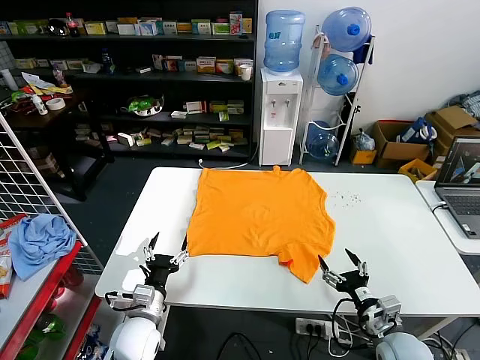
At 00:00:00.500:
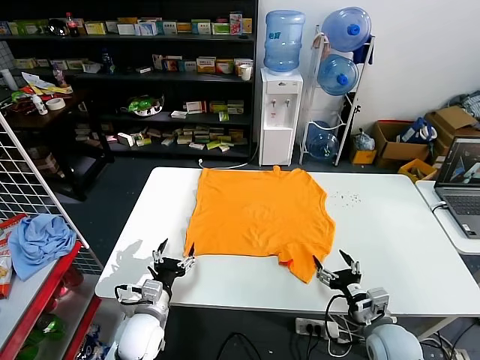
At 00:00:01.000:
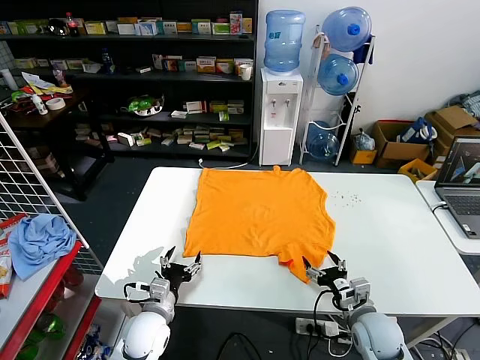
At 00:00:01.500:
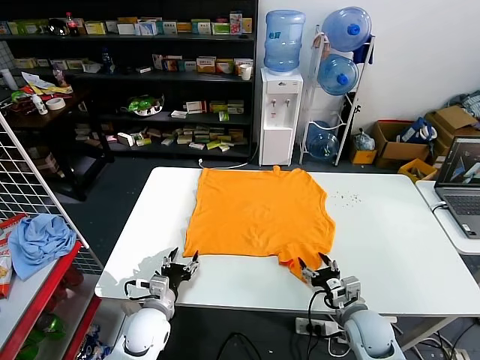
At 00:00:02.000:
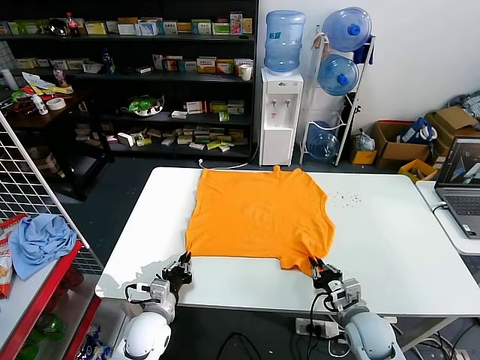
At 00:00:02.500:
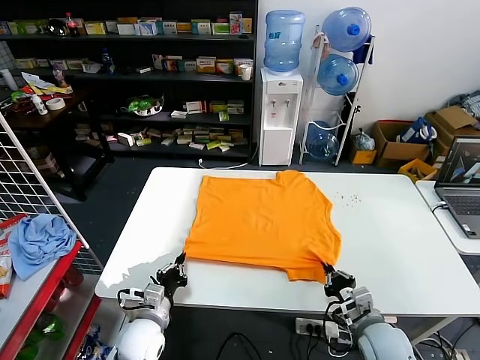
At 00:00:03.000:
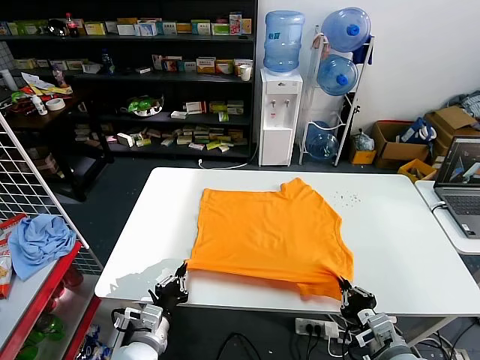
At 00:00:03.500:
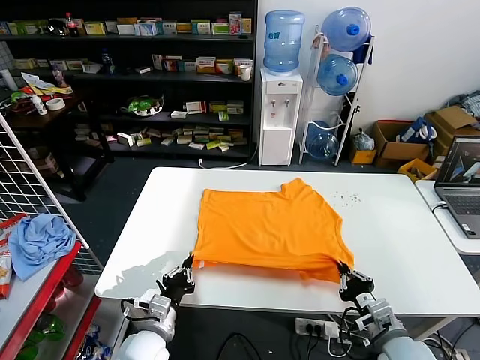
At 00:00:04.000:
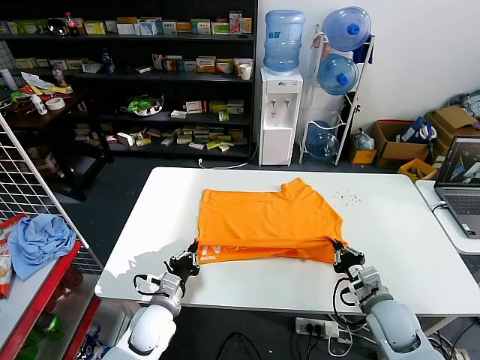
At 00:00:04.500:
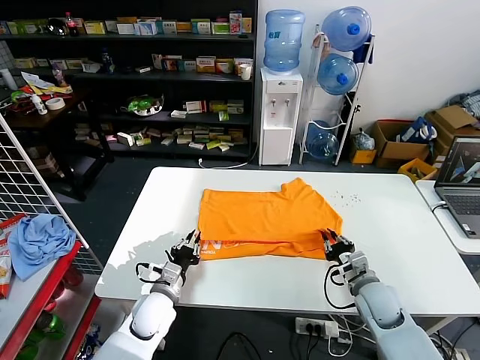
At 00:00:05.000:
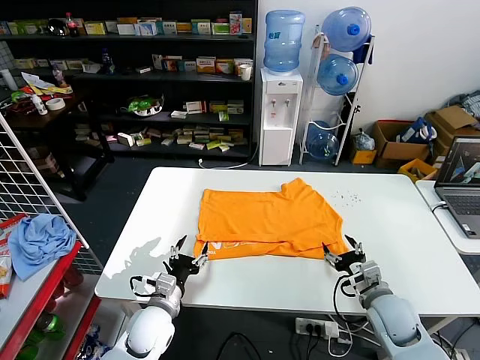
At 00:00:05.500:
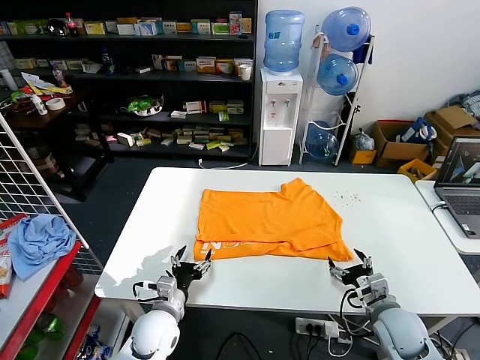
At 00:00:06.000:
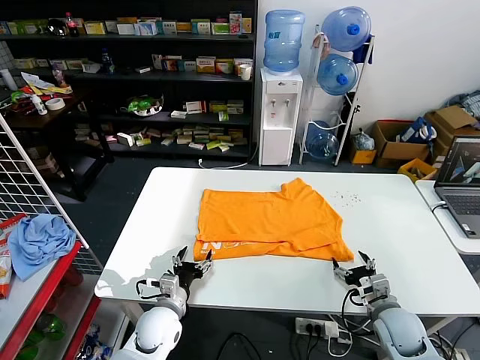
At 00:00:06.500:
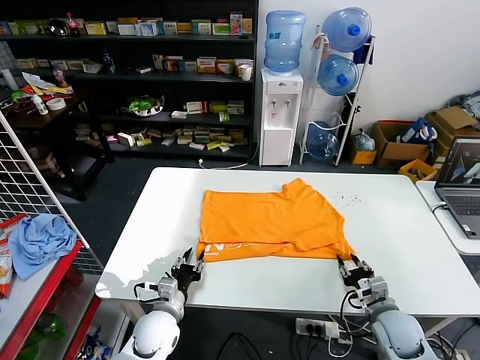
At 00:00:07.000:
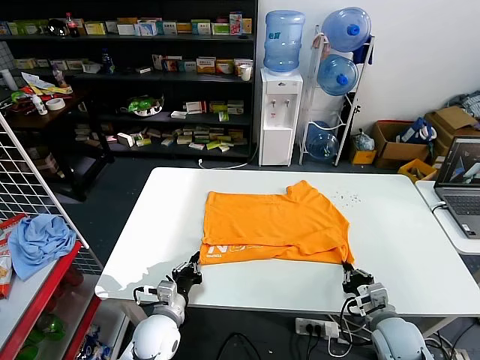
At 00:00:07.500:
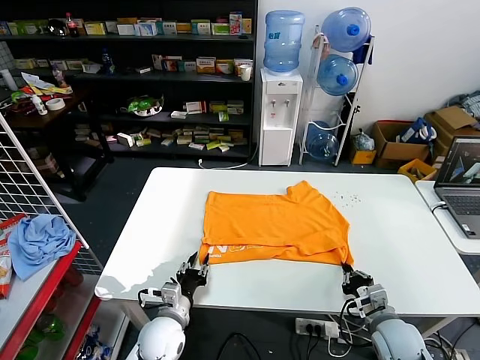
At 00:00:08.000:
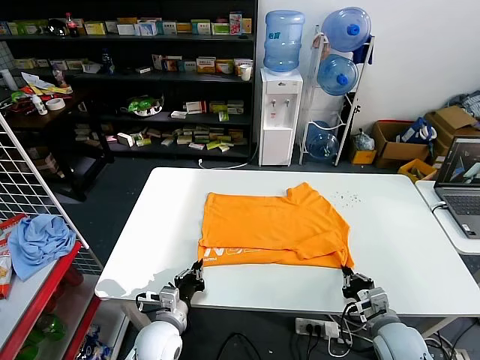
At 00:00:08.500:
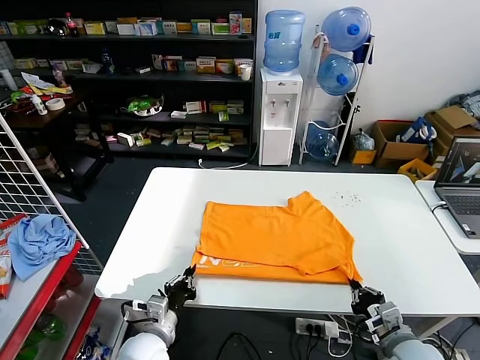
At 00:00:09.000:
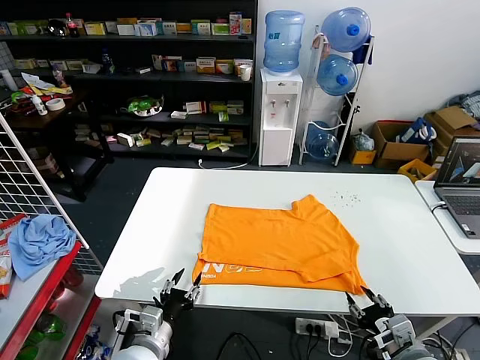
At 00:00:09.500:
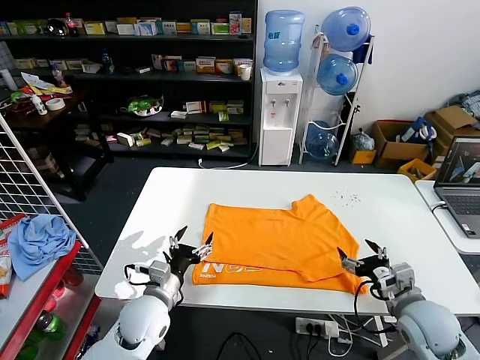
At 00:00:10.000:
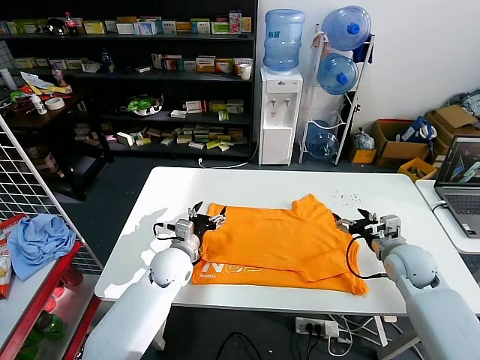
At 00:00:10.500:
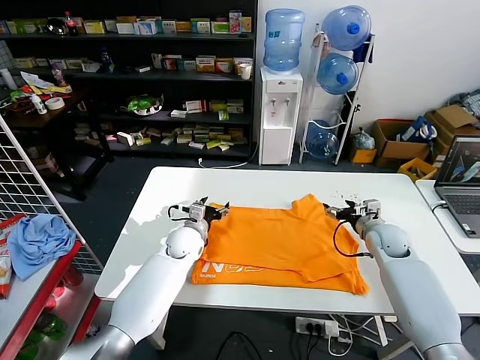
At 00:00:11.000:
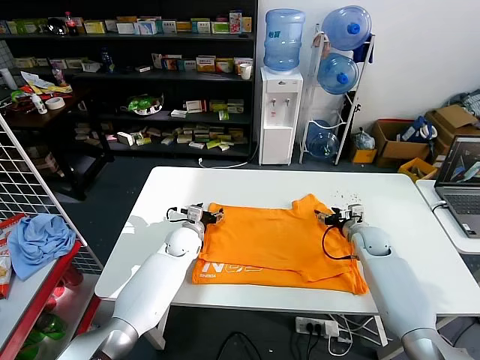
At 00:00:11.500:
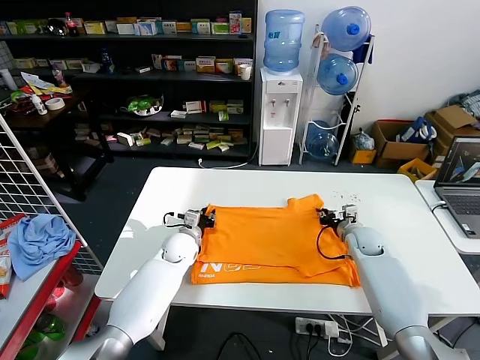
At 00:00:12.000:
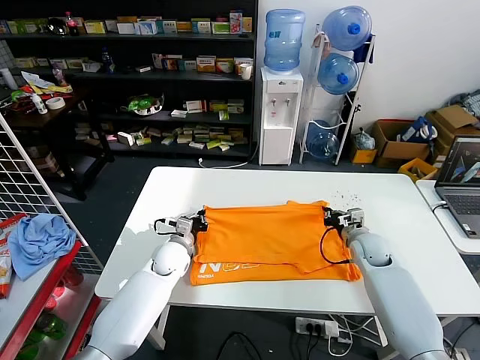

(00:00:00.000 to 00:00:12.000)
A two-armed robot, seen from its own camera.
Task of the whole recording: fold and organize the clothes.
Step, 00:00:00.000 - 00:00:02.000: use both grippers simultaneously to clamp the lower edge of the clothing fabric.
Step, 00:00:02.500 - 00:00:04.500: use both grippers to drag the lower edge of the fabric forward and fold it over the upper edge.
Step, 00:00:05.000 - 00:00:09.000: Drag the clothes downward with both gripper.
Step, 00:00:09.500 - 00:00:11.500: use both grippers simultaneously to clamp the upper edge of the clothing fabric.
00:00:02.000 - 00:00:04.000: The right gripper goes backward and returns, approximately 10 cm each way.
00:00:04.000 - 00:00:06.000: The right gripper opens its fingers. The left gripper opens its fingers.
00:00:06.000 - 00:00:08.000: The right gripper closes its fingers. Meanwhile the left gripper closes.
00:00:08.000 - 00:00:10.000: Both grippers move forward and upward, roughly 15 cm. The right gripper opens; the left gripper opens.
00:00:10.000 - 00:00:12.000: The right gripper heads forward and downward, covering approximately 10 cm, and closes; the left gripper moves forward, about 5 cm, and closes up.

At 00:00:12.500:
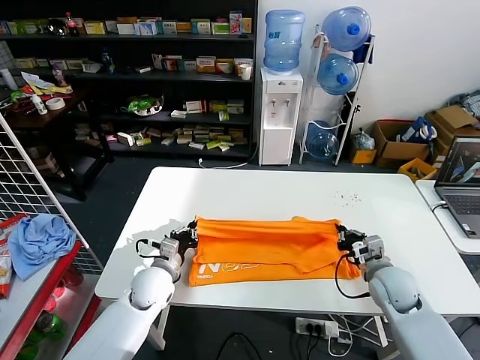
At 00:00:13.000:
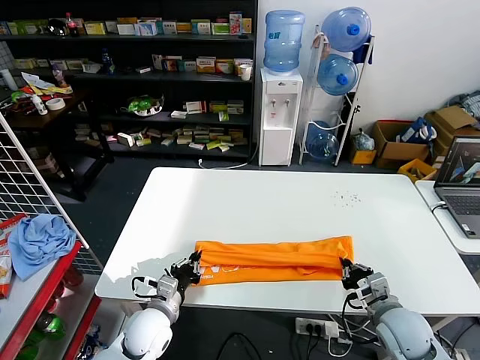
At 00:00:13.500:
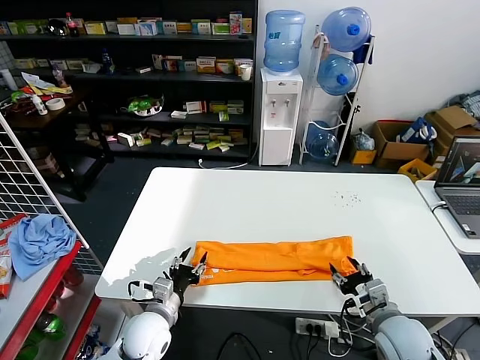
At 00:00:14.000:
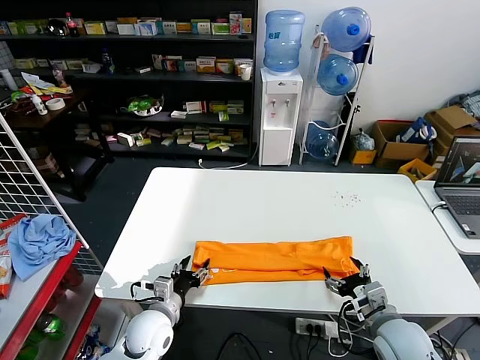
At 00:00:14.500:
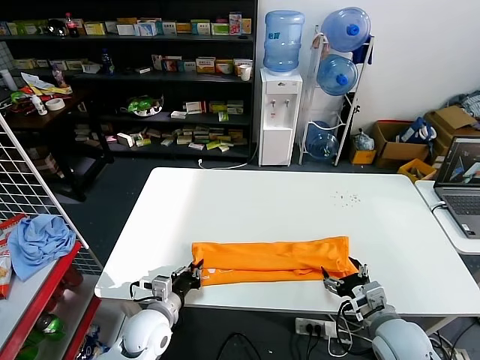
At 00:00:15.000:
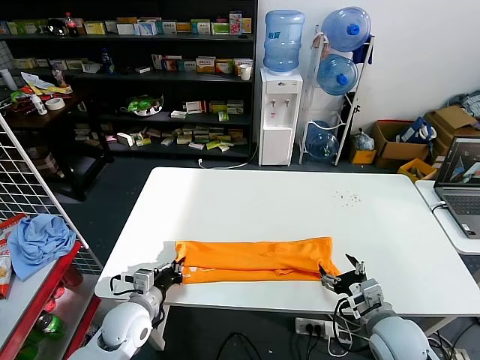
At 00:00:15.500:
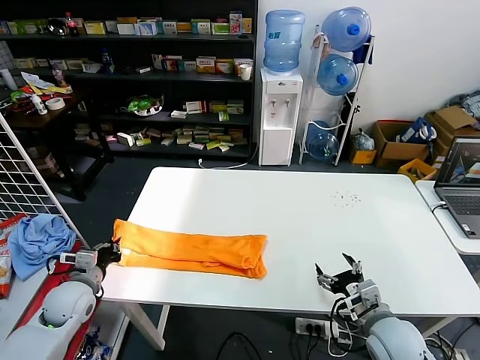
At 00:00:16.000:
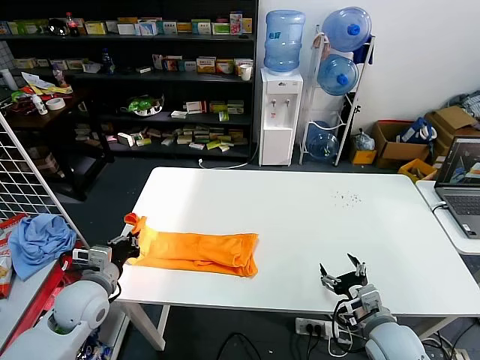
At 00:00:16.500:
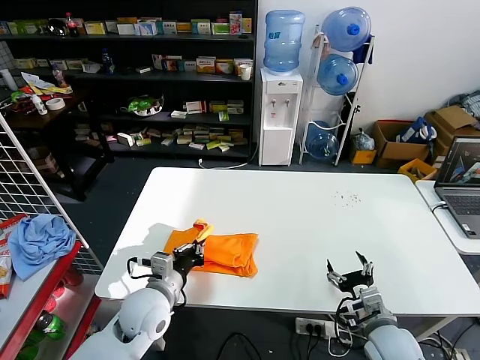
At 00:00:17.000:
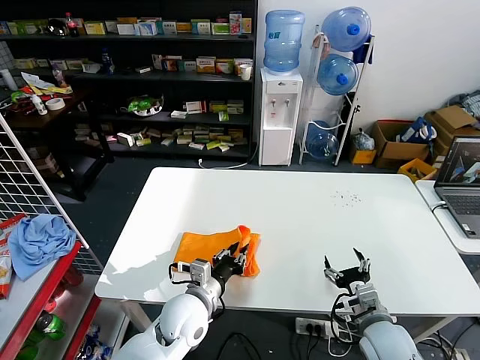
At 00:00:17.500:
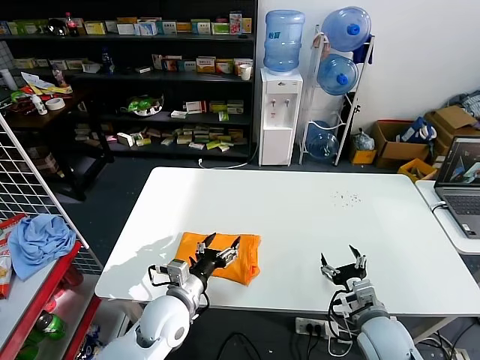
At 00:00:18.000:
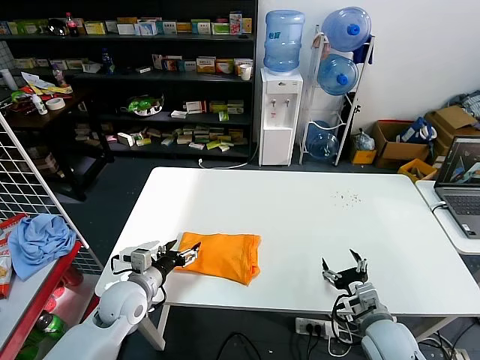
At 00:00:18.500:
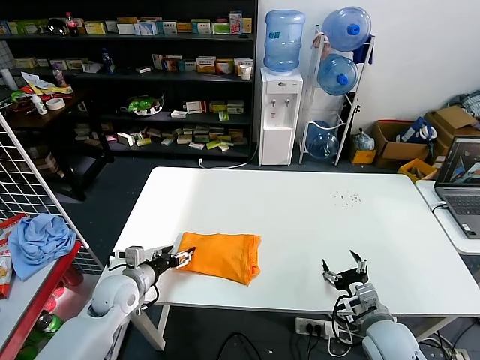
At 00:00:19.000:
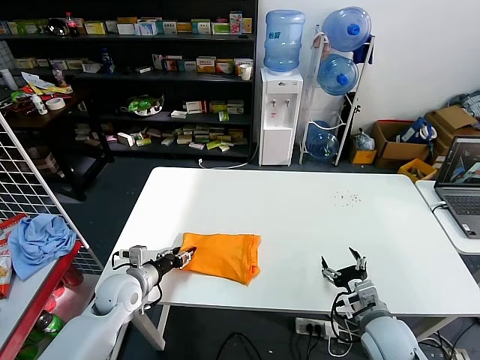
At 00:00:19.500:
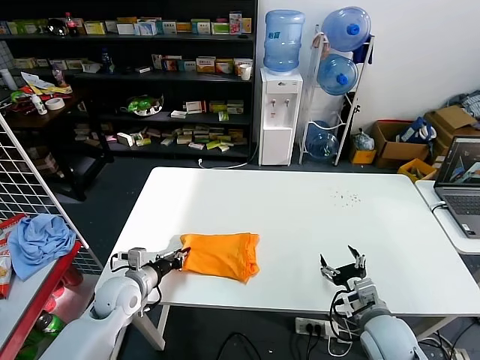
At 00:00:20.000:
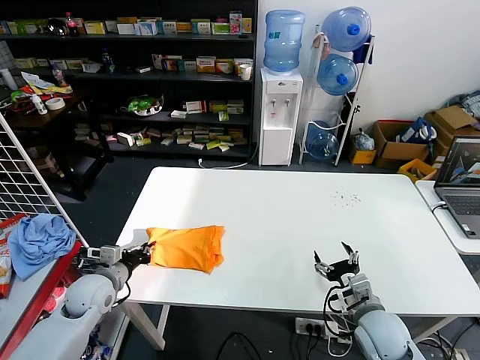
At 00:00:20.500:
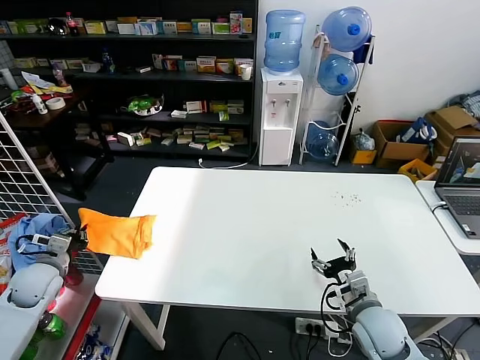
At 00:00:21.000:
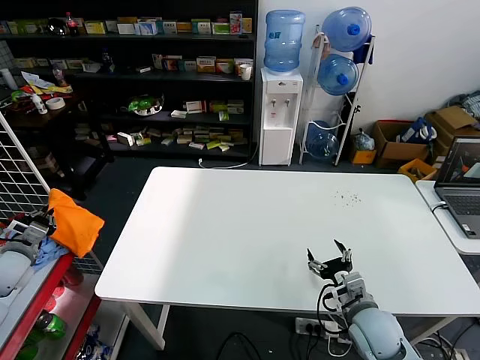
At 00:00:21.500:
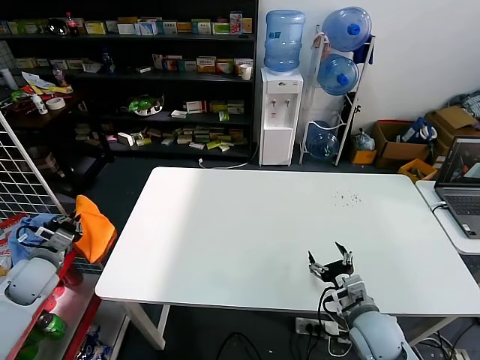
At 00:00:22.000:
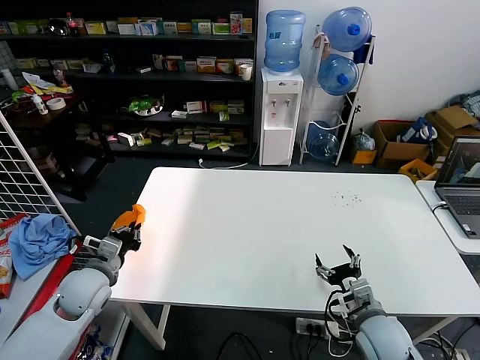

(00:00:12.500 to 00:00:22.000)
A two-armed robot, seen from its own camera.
Task of the whole recording: fold and organize the clothes.
Step, 00:00:12.500 - 00:00:13.500: use both grippers to drag the upper edge of the fabric backward and fold it over the lower edge.
Step, 00:00:14.000 - 00:00:14.500: use the left gripper to clamp the left edge of the fabric.
Step, 00:00:15.000 - 00:00:17.000: use the left gripper to drag the left edge of the fabric to the left and folds it over the right edge.
00:00:12.500 - 00:00:14.500: Both grippers move backward, about 10 cm. The left gripper opens, then closes again. Meanwhile the right gripper opens up.
00:00:14.500 - 00:00:16.500: The left gripper heads upward, covering approximately 10 cm, and goes to the left and returns, about 15 cm each way.
00:00:16.500 - 00:00:18.000: The left gripper travels to the right and back again, some 10 cm each way, and opens its fingers.
00:00:18.000 - 00:00:20.000: The left gripper is displaced to the left by roughly 10 cm, and closes its fingers.
00:00:20.000 - 00:00:22.000: The left gripper travels to the left and back again, some 20 cm each way.

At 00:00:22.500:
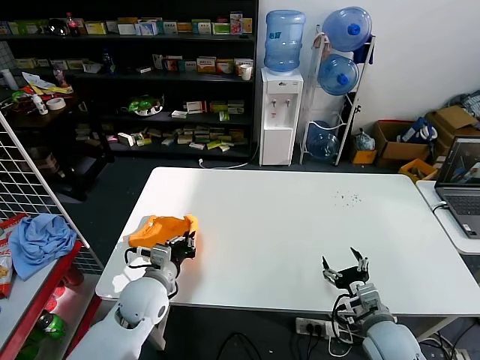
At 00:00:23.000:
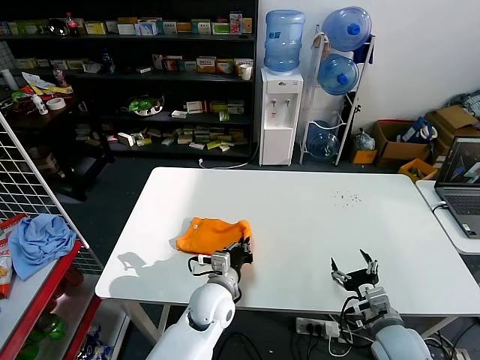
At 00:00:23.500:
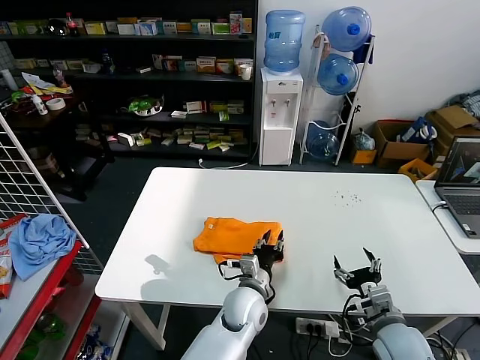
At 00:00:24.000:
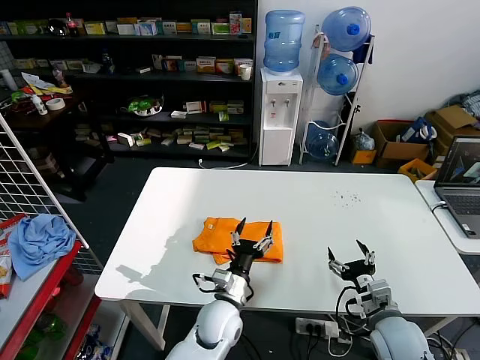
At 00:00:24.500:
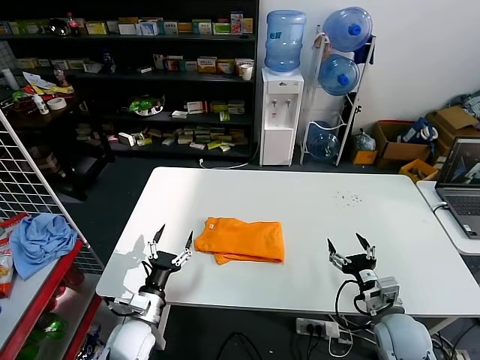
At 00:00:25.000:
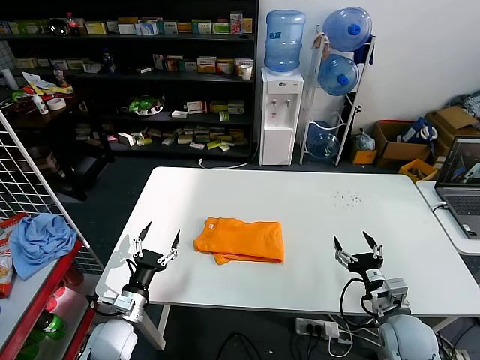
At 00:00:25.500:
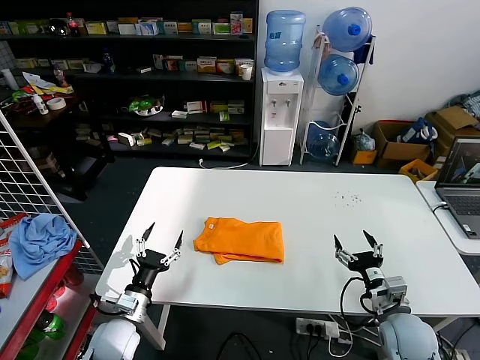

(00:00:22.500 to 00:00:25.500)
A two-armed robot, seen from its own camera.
Task of the whole recording: fold and organize the clothes.
00:00:22.500 - 00:00:24.000: The left gripper moves to the right, approximately 20 cm, and opens.
00:00:24.000 - 00:00:25.500: The left gripper shifts about 25 cm to the left.
